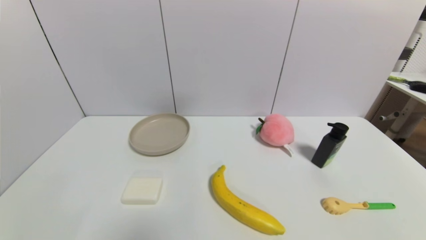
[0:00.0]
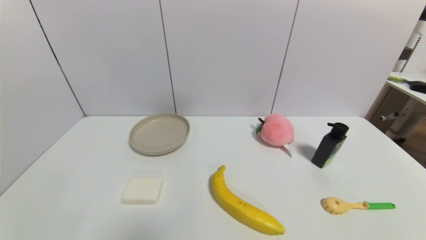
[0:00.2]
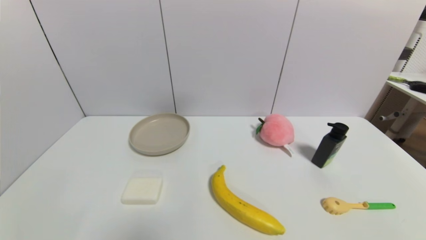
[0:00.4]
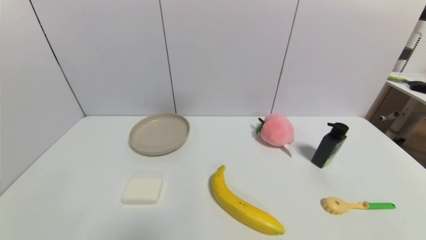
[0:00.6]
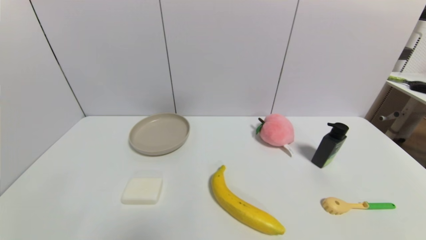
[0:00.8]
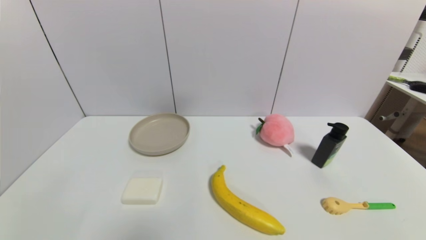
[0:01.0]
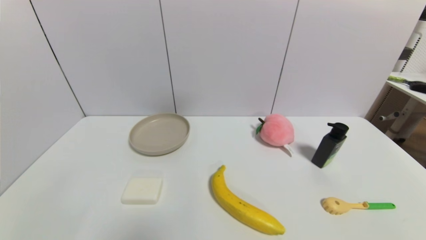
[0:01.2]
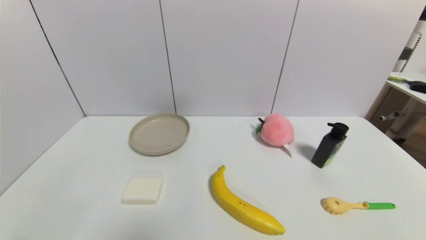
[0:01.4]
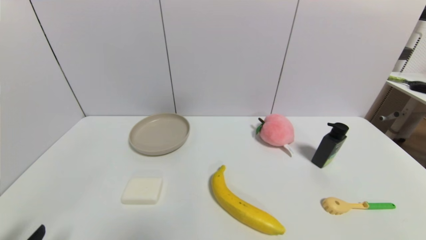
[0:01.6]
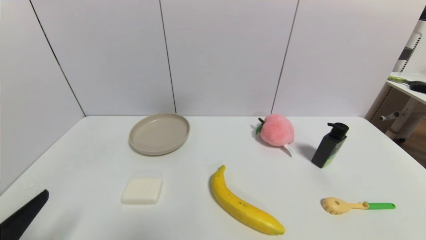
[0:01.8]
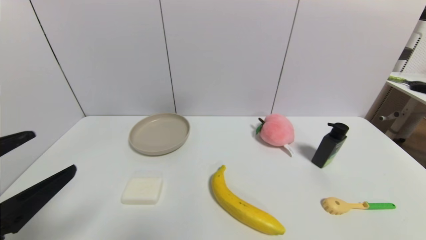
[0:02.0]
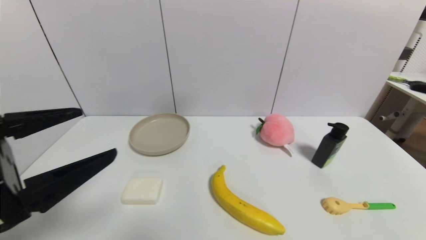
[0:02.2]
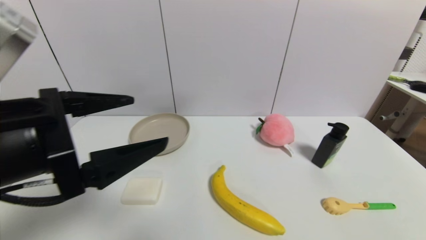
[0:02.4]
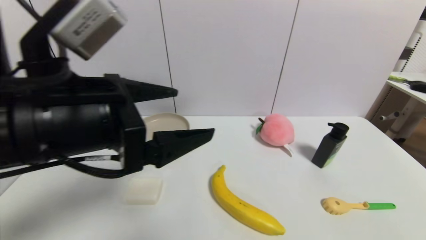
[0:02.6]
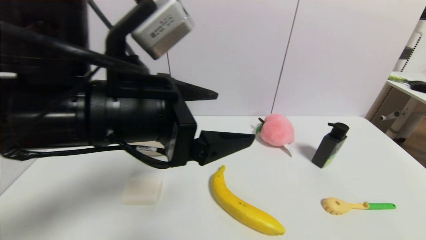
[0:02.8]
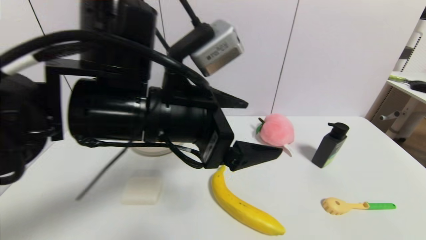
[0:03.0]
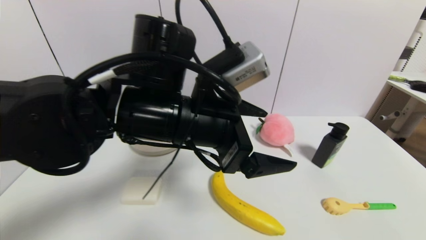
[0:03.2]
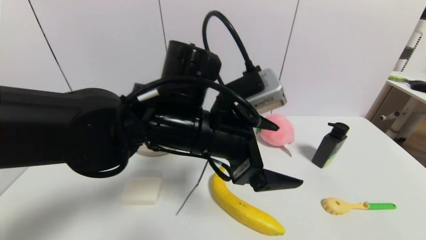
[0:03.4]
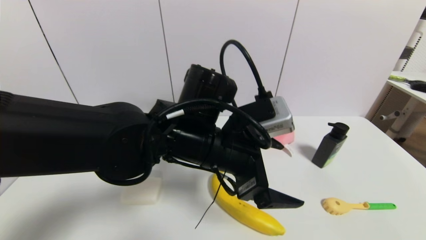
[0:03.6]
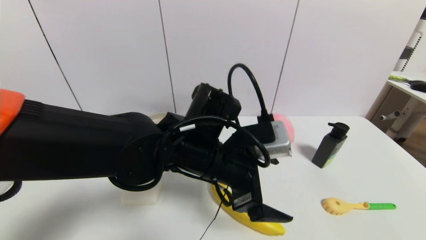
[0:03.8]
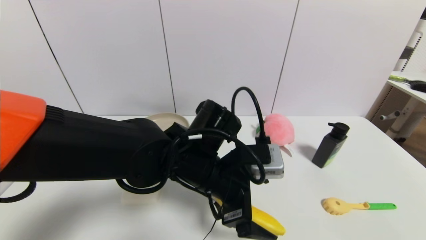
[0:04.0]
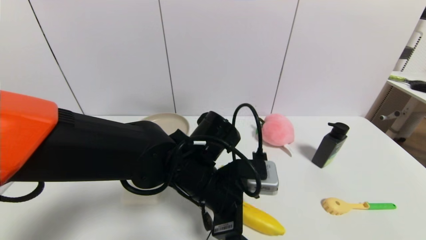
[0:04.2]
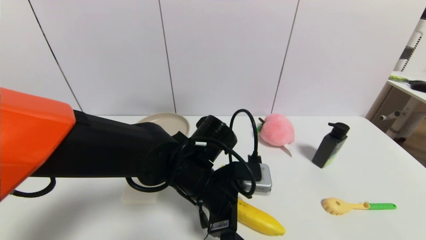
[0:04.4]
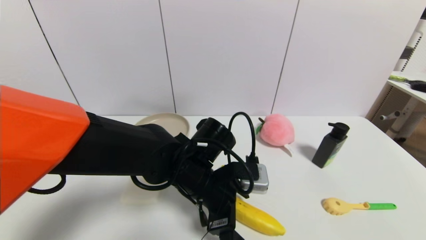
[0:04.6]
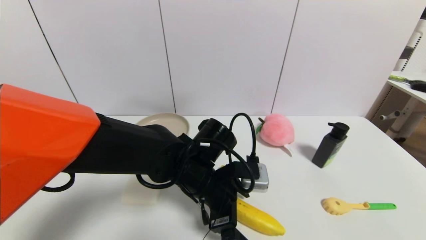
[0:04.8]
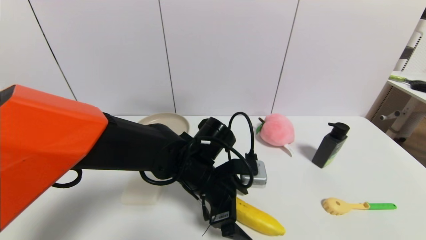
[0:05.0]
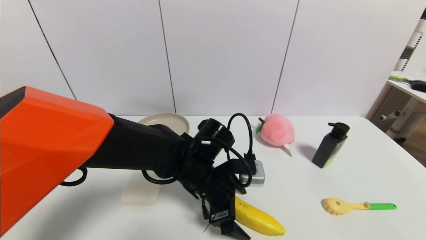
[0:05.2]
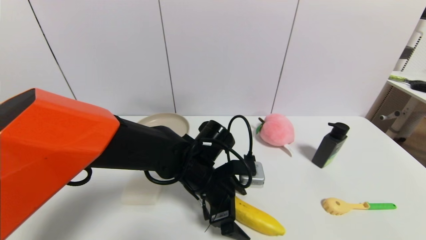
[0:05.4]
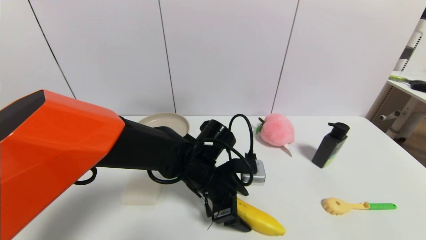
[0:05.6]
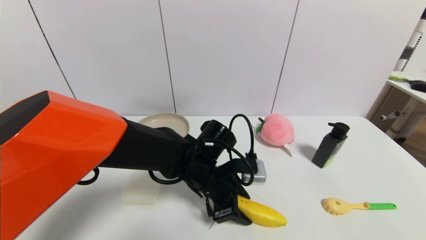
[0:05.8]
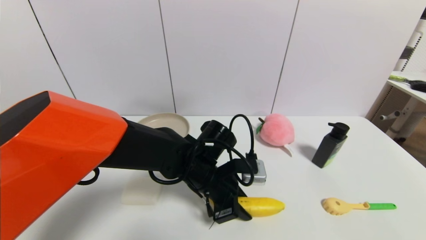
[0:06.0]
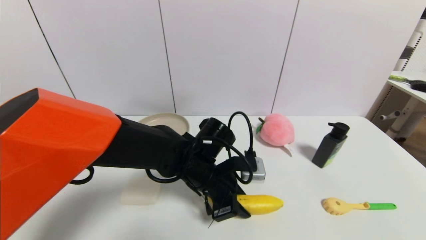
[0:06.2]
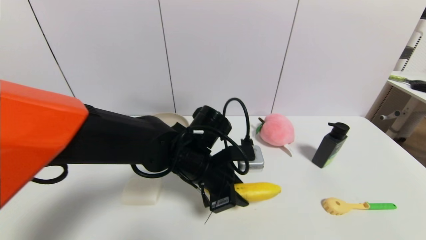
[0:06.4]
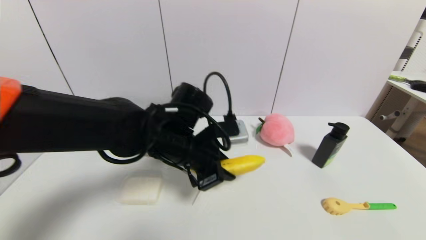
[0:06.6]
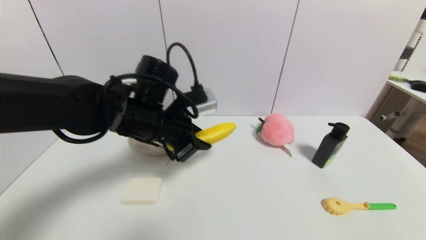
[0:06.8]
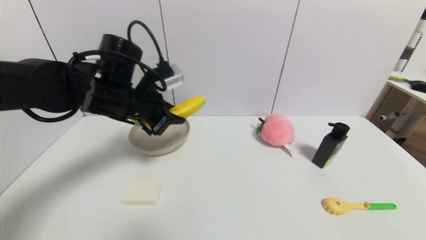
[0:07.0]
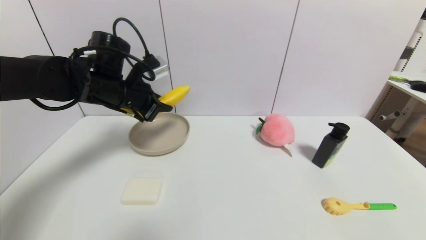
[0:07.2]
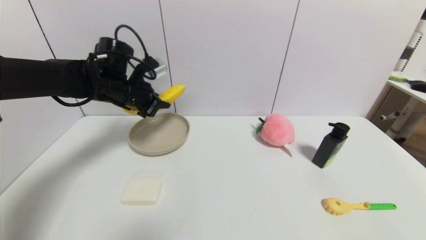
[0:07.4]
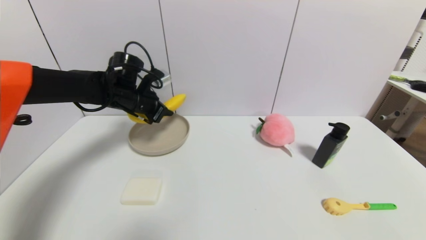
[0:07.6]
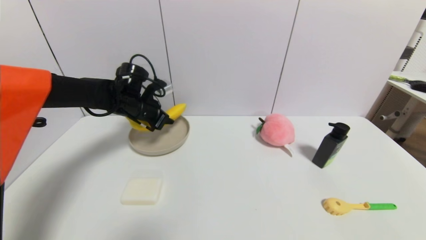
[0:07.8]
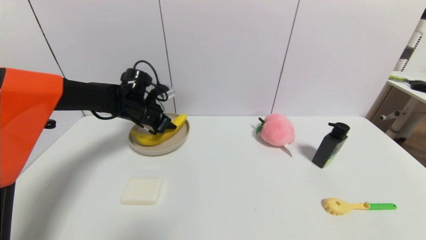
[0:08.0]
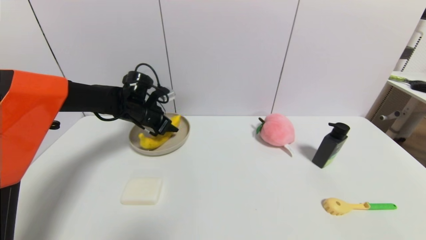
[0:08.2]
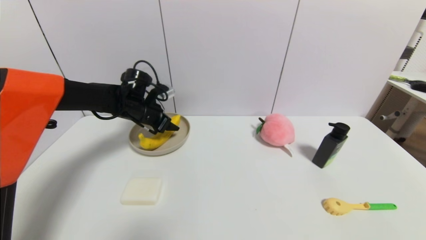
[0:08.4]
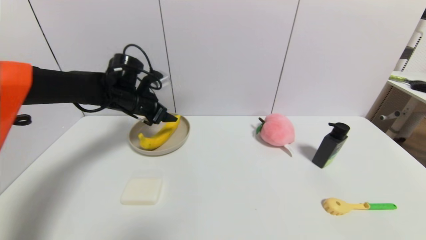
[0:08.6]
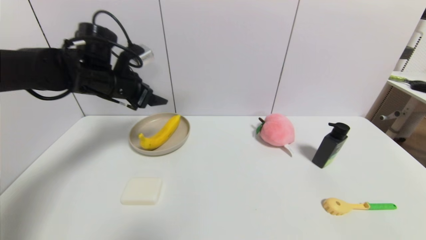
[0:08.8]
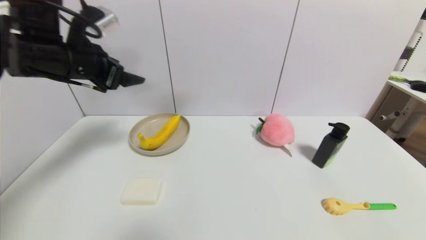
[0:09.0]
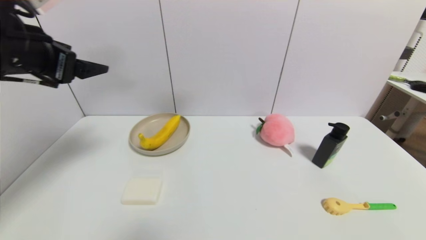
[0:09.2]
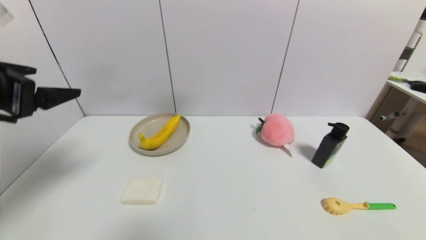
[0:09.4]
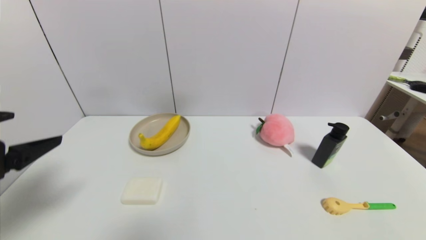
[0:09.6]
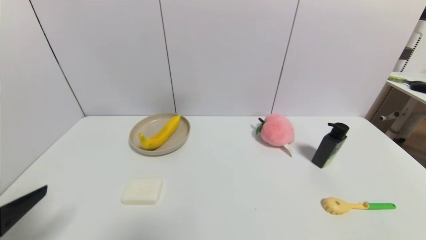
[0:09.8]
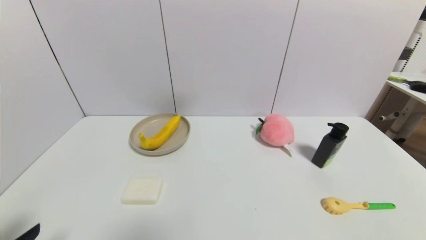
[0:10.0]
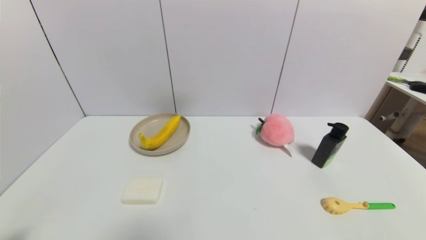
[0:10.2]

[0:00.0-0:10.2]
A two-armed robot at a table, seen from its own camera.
Task of the whole recording: use a gripper to pick the target object and place on the brown plate.
Step, 0:00.0 to 0:06.2: Grasp the banana with the left gripper.
Step, 0:06.4 to 0:08.8: Place the banana on the brown plate with the left gripper.
0:01.4 to 0:03.0: The left gripper travels to the right, upward and forward by approximately 35 cm.
0:03.0 to 0:04.4: The left gripper travels downward by about 15 cm.
0:04.4 to 0:05.8: The left gripper closes up.
0:05.8 to 0:07.2: The left gripper goes about 25 cm to the left, upward and forward.
0:07.2 to 0:08.8: The left gripper reaches roughly 10 cm downward, then returns, and opens its fingers.
0:08.8 to 0:10.2: The left gripper moves backward, some 35 cm.

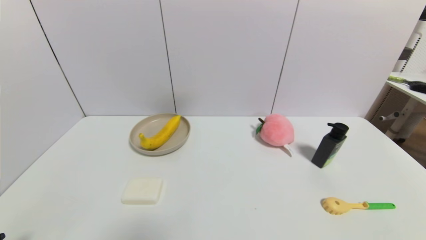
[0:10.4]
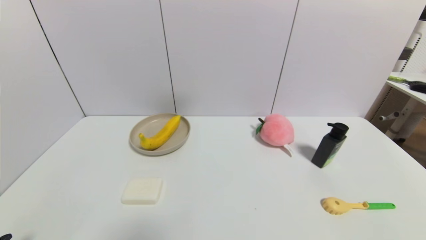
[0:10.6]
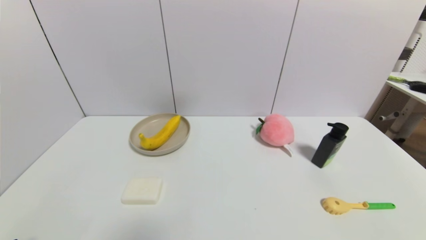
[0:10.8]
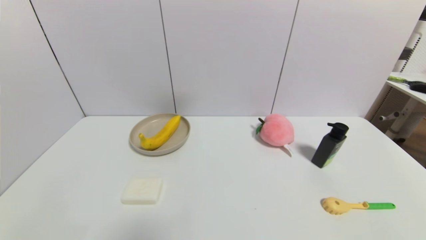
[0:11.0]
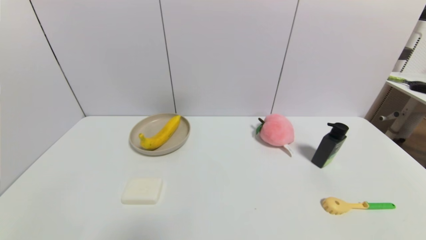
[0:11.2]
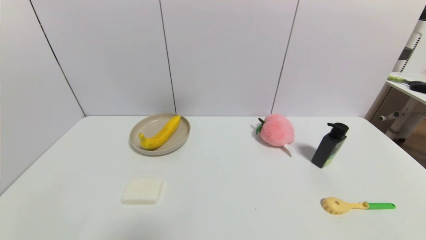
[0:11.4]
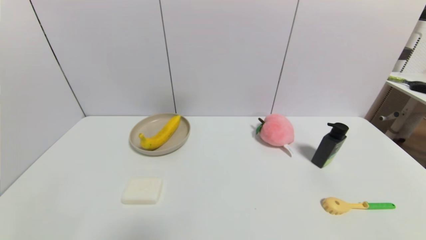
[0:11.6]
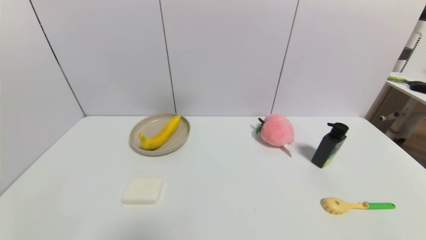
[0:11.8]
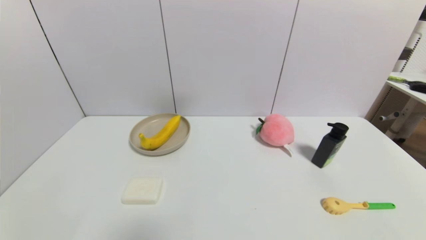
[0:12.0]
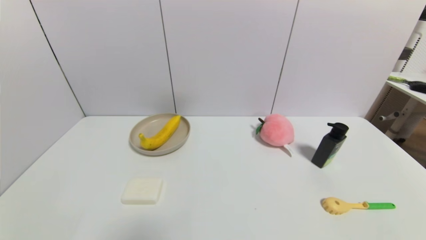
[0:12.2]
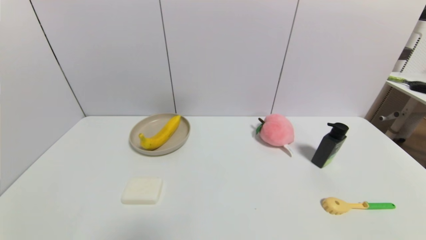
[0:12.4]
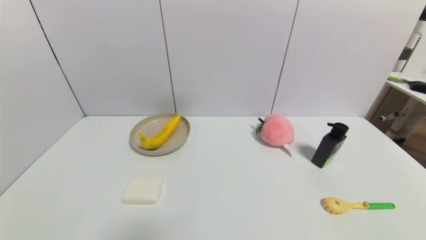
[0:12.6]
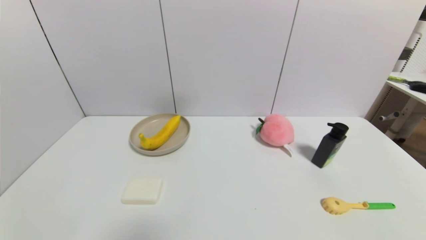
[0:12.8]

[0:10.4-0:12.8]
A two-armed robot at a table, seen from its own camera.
Task of the whole recording: use a gripper to pick the target object and place on the brown plate.
0:11.6 to 0:12.8: Neither gripper changes place.

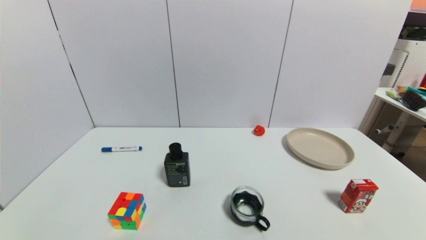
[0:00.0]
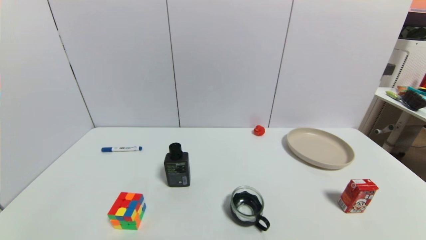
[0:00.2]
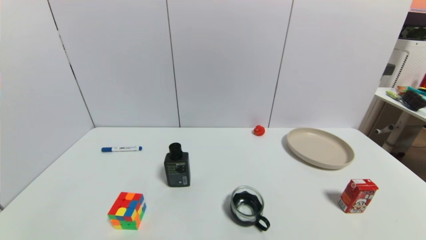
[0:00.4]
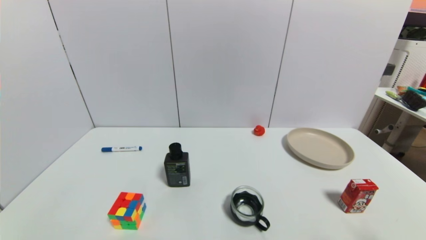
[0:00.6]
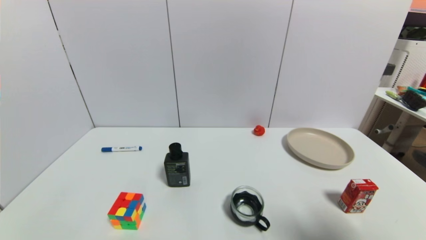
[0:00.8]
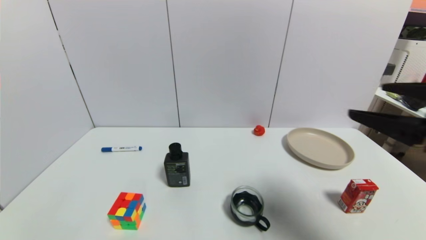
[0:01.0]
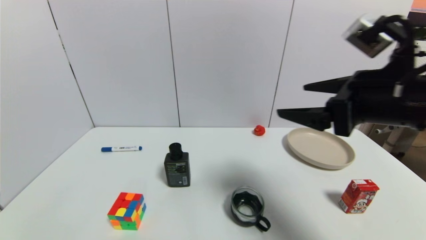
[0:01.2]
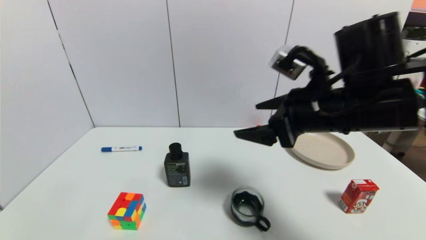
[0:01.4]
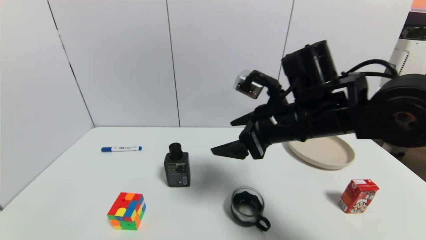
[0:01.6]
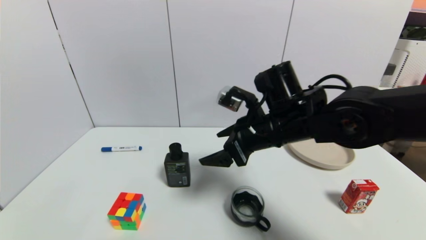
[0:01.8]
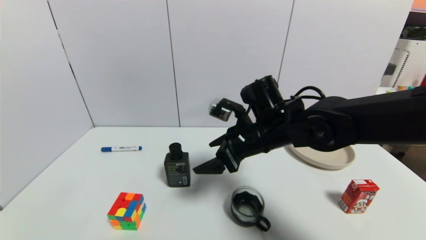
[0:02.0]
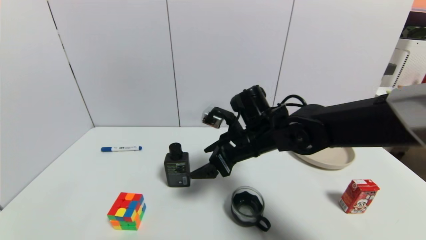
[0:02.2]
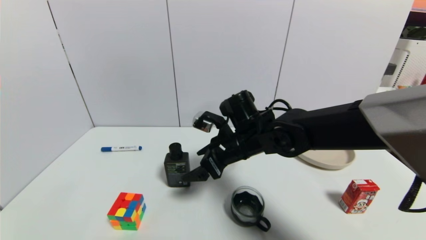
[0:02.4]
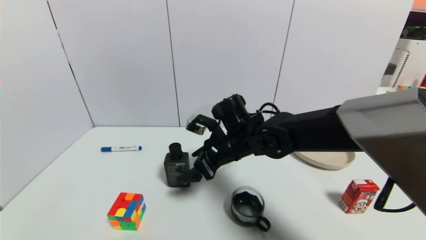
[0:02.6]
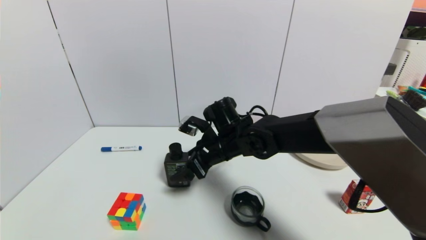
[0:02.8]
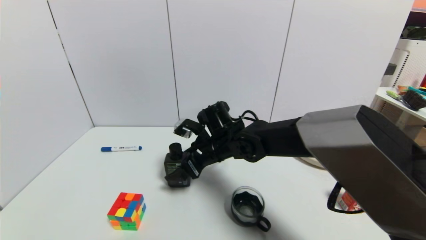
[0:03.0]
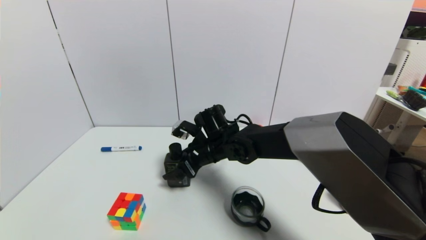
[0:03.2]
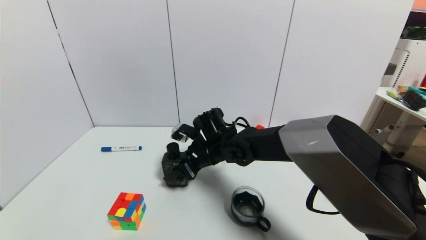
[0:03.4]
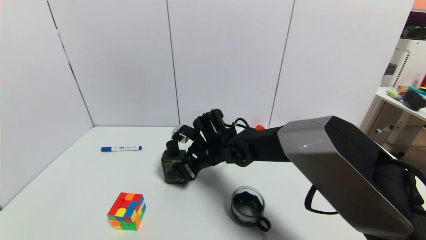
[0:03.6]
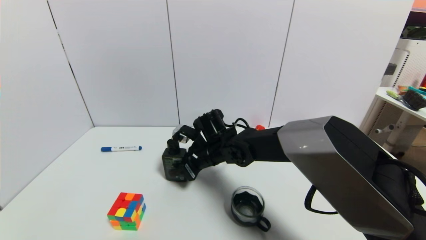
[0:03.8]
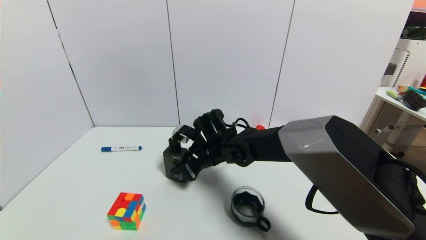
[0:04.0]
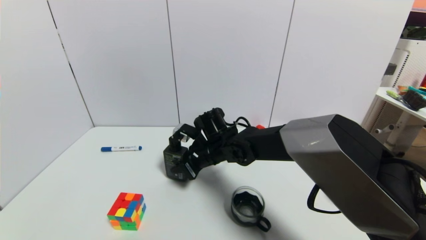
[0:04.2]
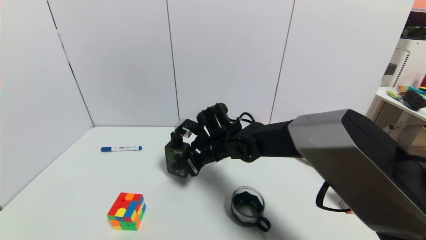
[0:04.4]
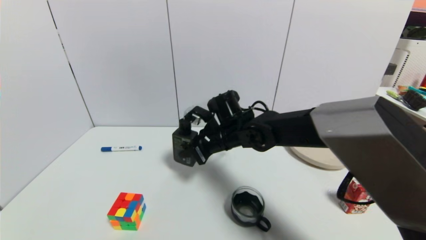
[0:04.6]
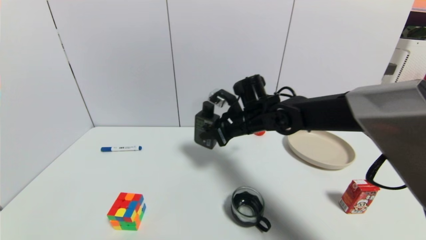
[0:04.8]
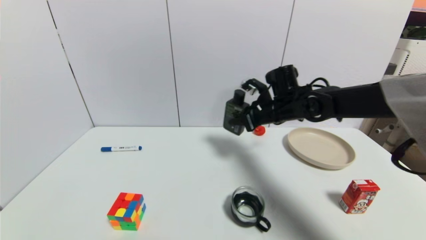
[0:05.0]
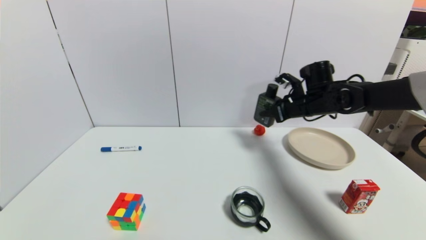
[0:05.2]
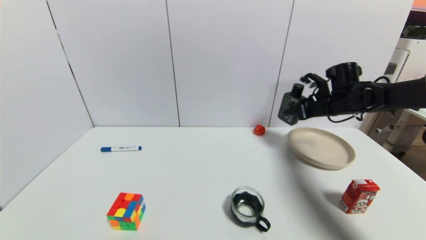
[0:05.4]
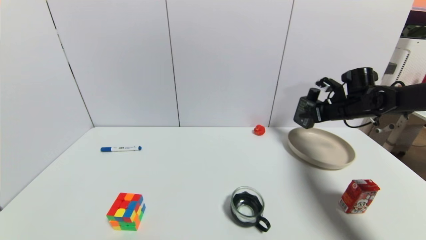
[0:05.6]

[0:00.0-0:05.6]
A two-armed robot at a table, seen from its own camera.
Task of the whole recording: use a gripper to pick the target object and place on the brown plate.
Step, 0:00.0 to 0:04.0: Grasp the hard facial cleanser with the right gripper.
0:00.0 to 0:01.4: The right gripper goes about 35 cm forward, upward and to the left.
0:01.4 to 0:02.8: The right gripper shifts some 20 cm to the left, downward and forward.
0:02.8 to 0:04.2: The right gripper closes its fingers.
0:04.2 to 0:05.6: The right gripper goes some 35 cm to the right.
